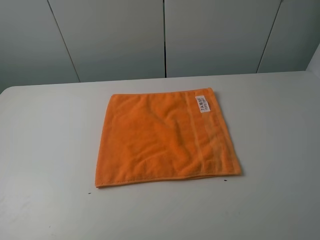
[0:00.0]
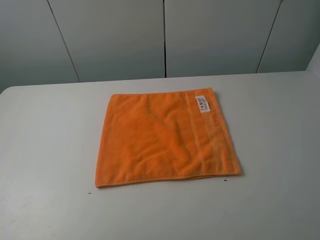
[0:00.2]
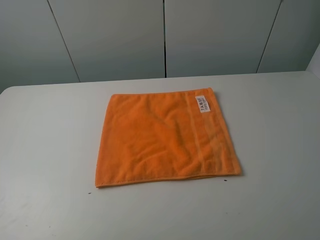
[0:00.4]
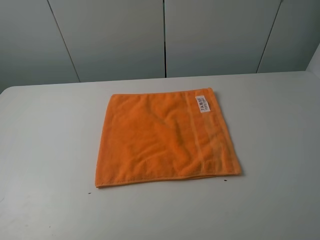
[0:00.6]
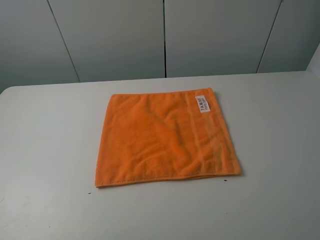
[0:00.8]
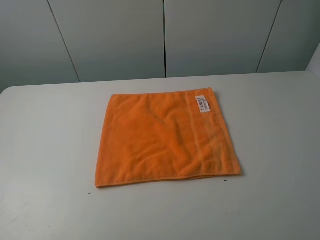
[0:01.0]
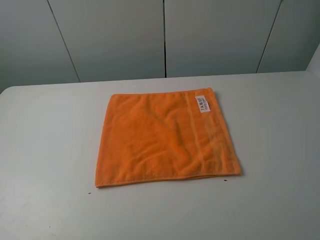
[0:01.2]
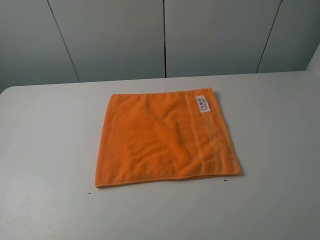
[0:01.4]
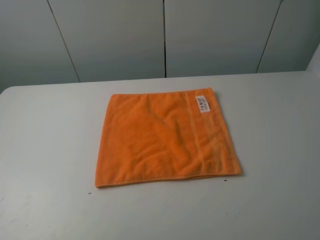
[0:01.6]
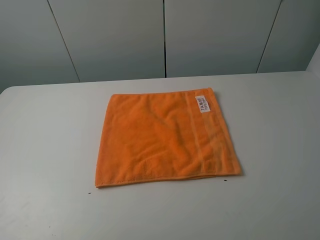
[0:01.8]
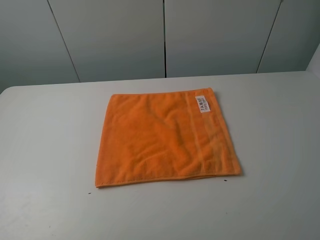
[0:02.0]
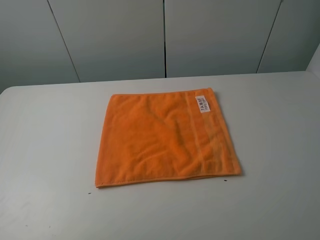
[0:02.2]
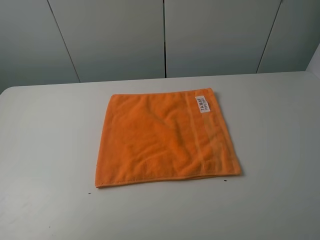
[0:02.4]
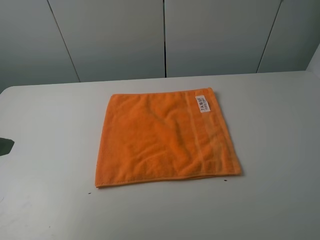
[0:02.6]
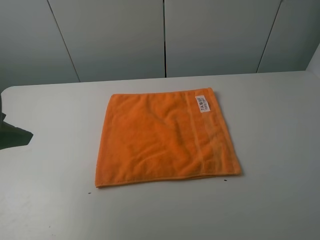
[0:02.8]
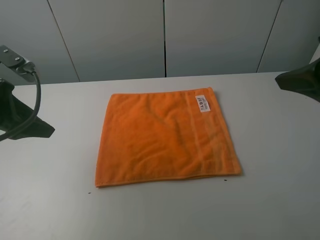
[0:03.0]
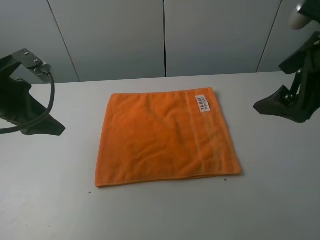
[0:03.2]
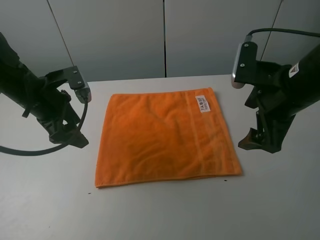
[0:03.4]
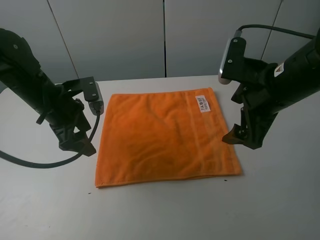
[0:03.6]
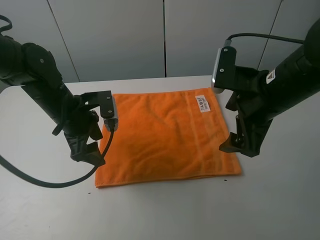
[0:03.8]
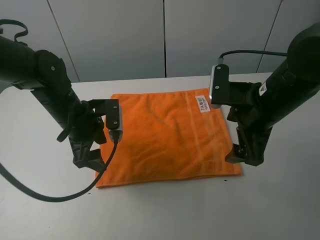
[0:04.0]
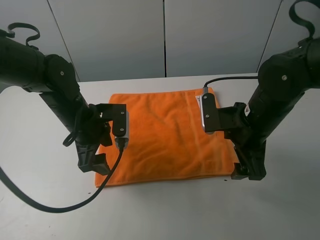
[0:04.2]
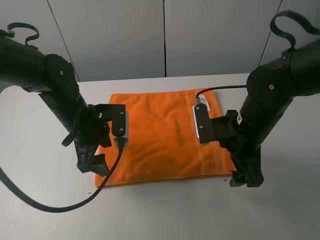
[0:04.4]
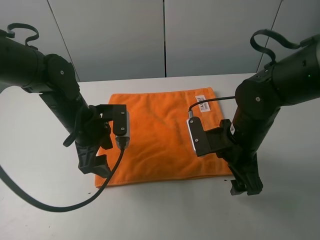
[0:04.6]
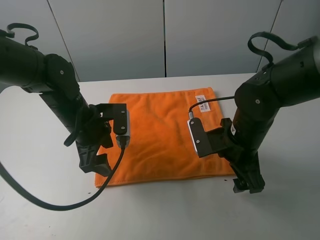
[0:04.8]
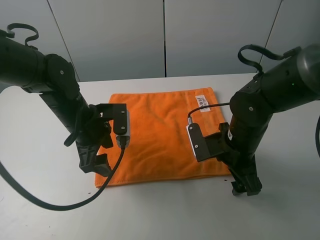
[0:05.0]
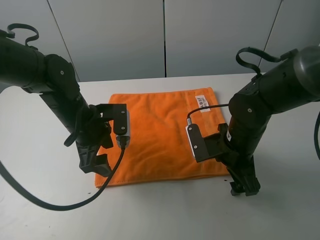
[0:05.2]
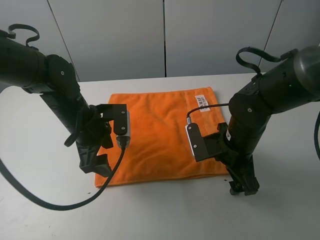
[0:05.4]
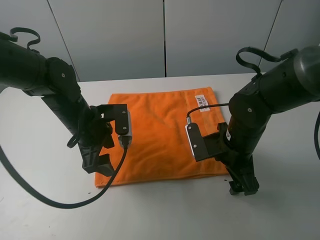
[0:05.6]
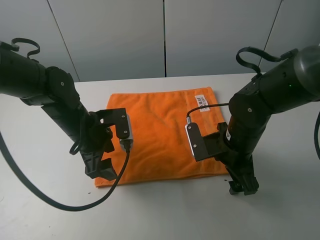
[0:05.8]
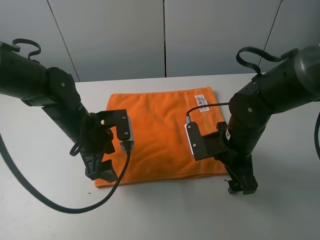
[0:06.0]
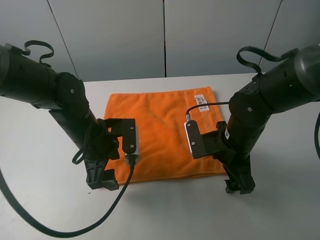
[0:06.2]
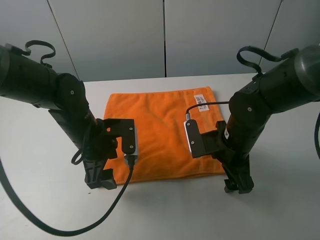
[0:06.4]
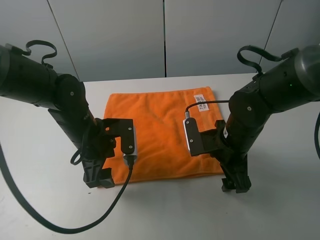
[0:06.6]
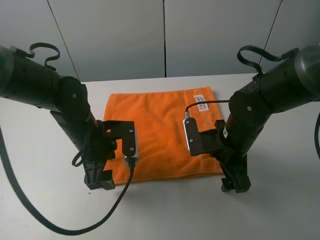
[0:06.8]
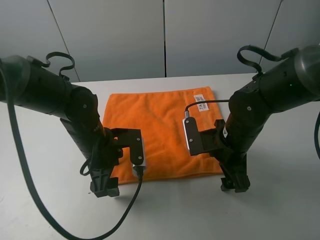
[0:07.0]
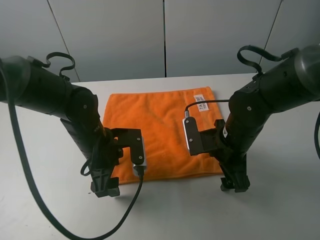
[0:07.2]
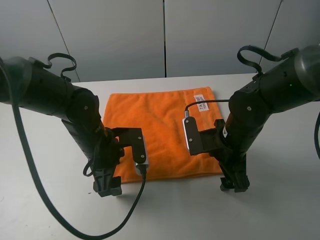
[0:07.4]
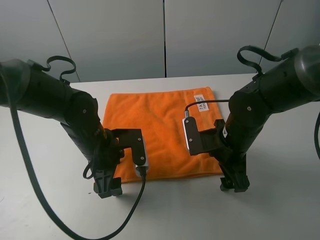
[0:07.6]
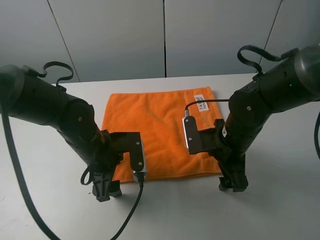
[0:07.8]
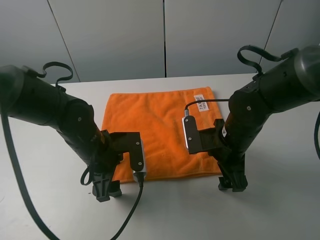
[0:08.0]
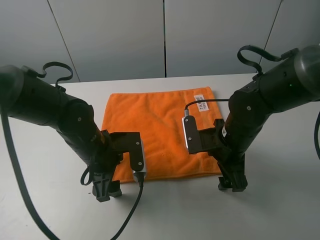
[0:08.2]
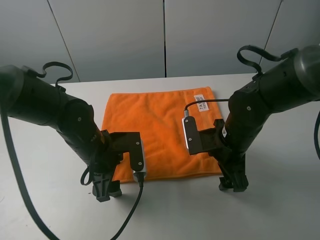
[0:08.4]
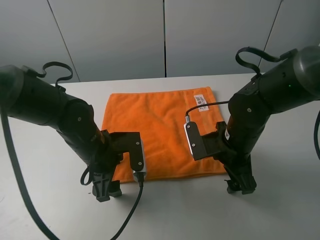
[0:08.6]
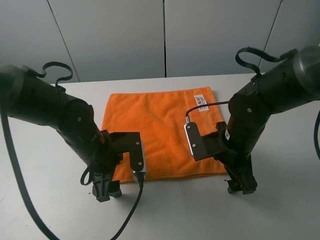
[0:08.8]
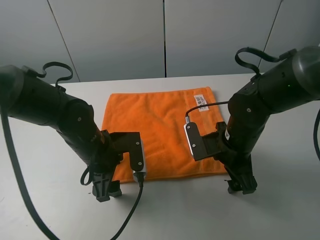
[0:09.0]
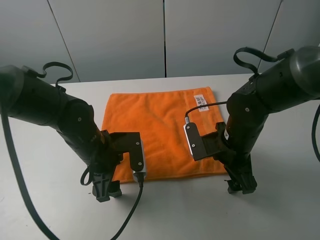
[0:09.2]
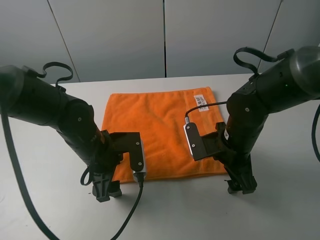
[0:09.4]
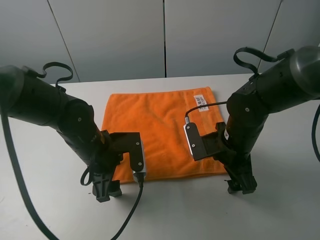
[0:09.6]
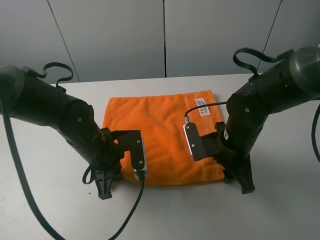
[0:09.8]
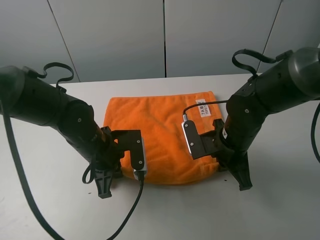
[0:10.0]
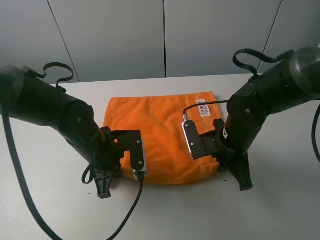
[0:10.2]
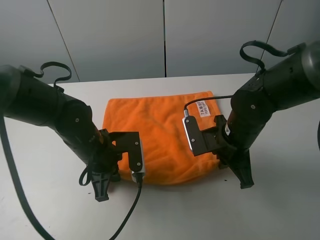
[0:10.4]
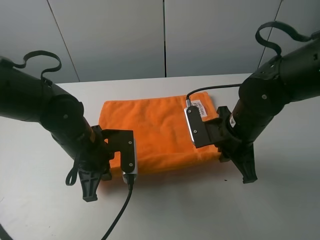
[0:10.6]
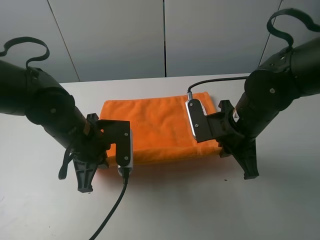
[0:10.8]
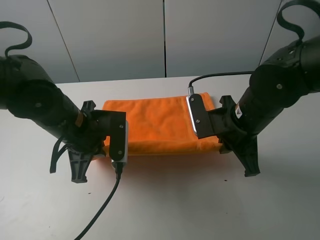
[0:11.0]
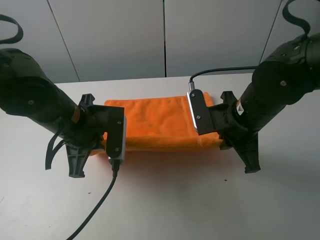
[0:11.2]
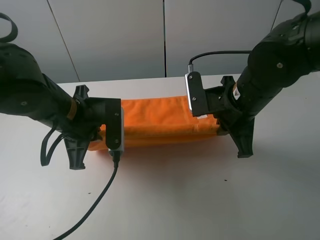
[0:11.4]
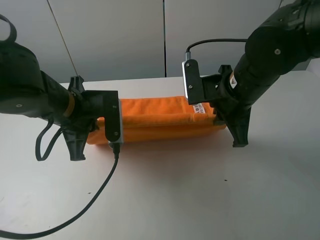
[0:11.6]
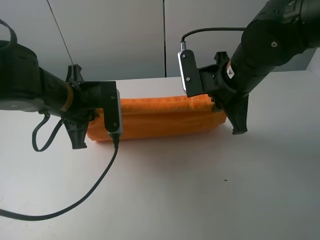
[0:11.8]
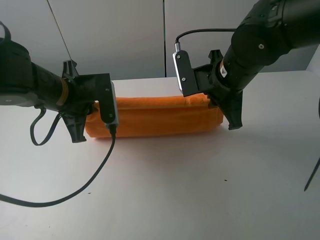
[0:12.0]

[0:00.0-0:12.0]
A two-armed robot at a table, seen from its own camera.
Task of the whole recording: fold the towels on the table.
Step, 0:00.0 to 0:10.0: Grasp the orange towel with the right gripper.
0:00.0 to 0:01.6: The two grippers keep their place.
0:01.6 to 0:03.0: The grippers both shift forward by roughly 20 cm.
0:03.0 to 0:04.4: The right gripper goes some 20 cm downward and to the left. The left gripper travels to the right and downward by about 15 cm.
0:04.4 to 0:06.0: The grippers move only a little.
0:06.0 to 0:09.0: The grippers stay close to where they were, moving slightly.
0:09.0 to 0:10.4: The left gripper closes. Meanwhile the right gripper closes up.
0:10.4 to 0:12.0: The right gripper travels upward and forward by roughly 10 cm. Meanwhile the left gripper travels upward by approximately 10 cm.

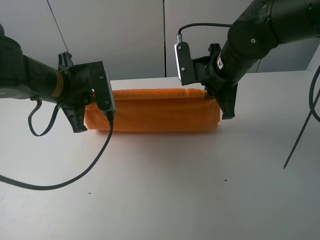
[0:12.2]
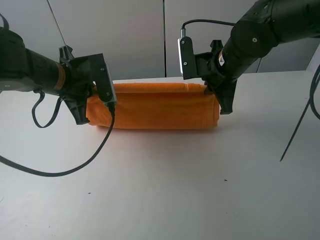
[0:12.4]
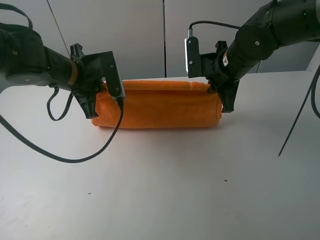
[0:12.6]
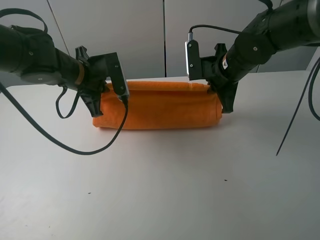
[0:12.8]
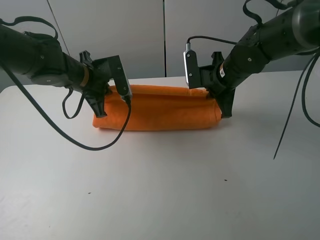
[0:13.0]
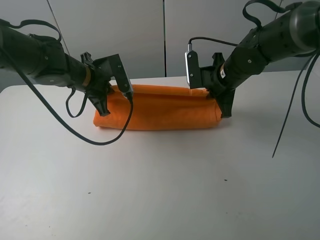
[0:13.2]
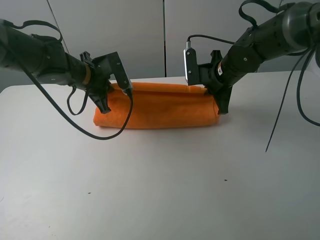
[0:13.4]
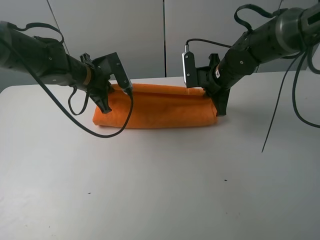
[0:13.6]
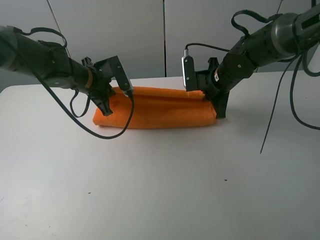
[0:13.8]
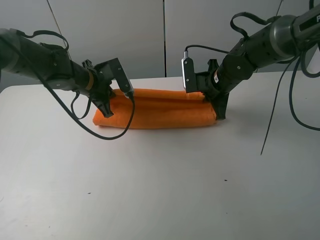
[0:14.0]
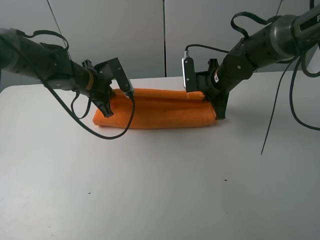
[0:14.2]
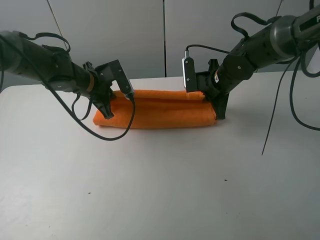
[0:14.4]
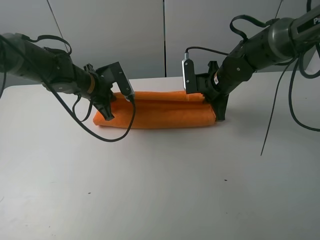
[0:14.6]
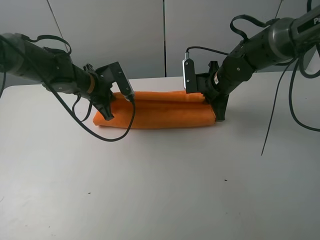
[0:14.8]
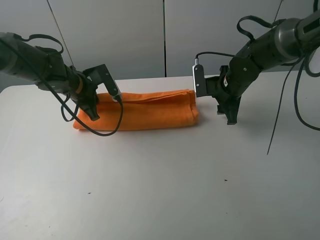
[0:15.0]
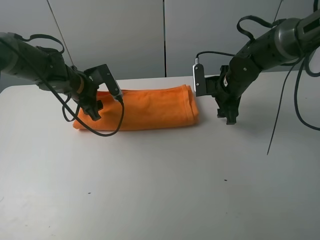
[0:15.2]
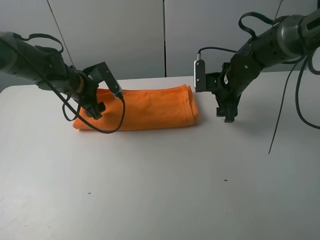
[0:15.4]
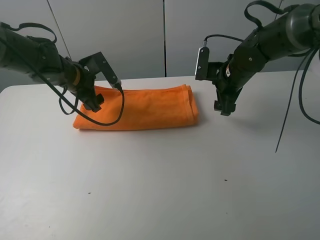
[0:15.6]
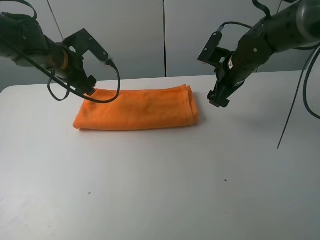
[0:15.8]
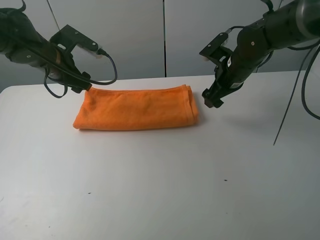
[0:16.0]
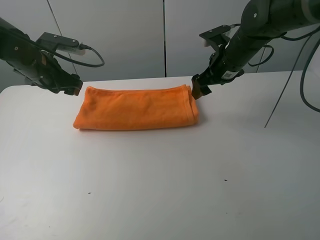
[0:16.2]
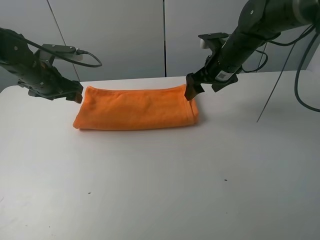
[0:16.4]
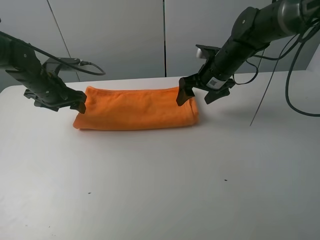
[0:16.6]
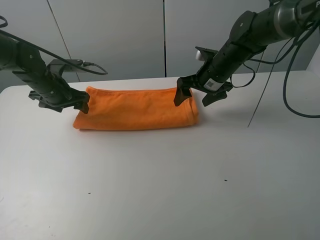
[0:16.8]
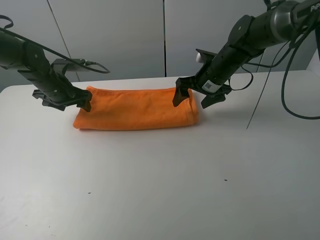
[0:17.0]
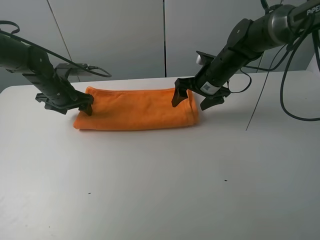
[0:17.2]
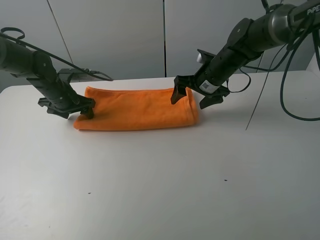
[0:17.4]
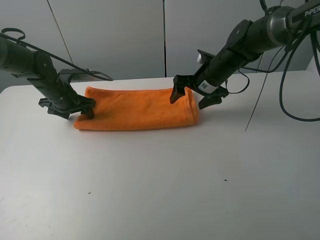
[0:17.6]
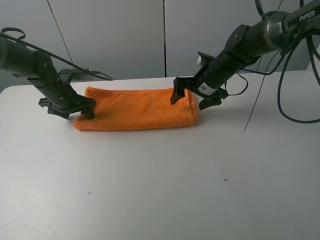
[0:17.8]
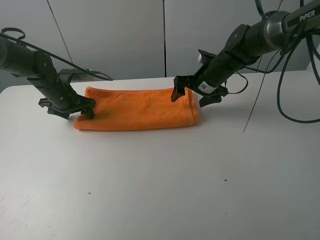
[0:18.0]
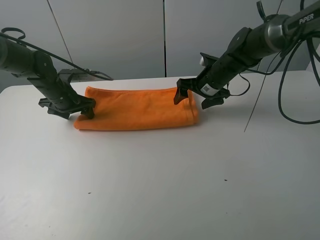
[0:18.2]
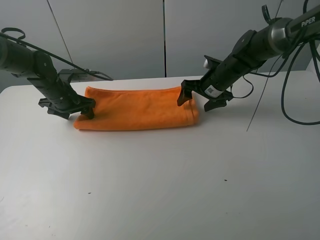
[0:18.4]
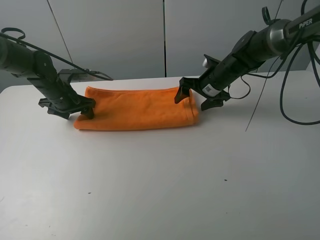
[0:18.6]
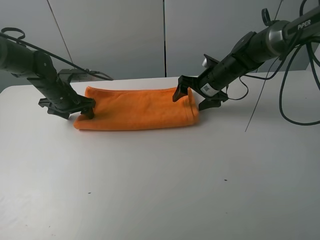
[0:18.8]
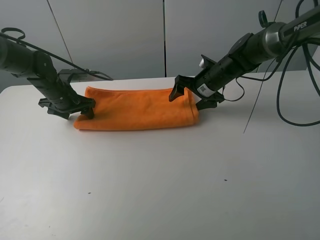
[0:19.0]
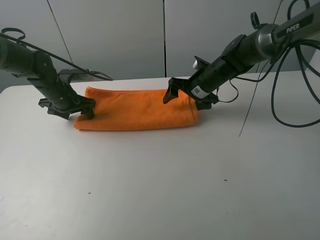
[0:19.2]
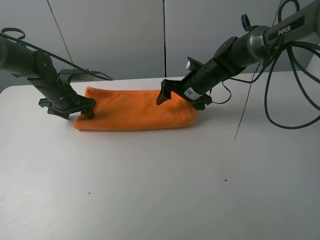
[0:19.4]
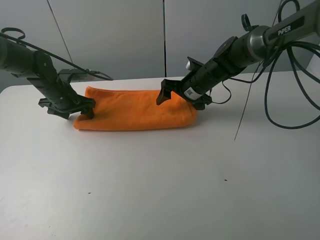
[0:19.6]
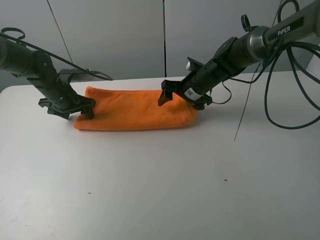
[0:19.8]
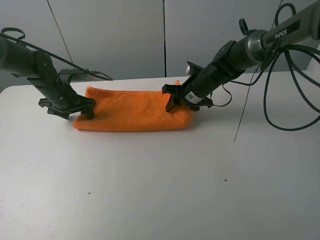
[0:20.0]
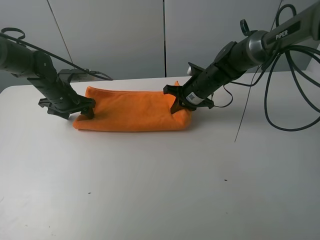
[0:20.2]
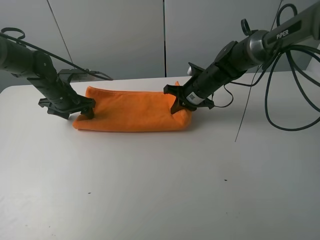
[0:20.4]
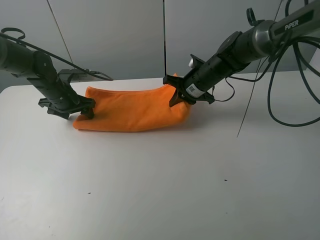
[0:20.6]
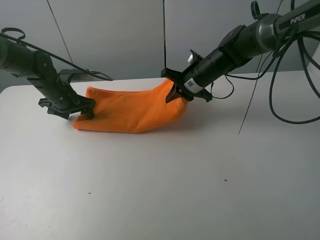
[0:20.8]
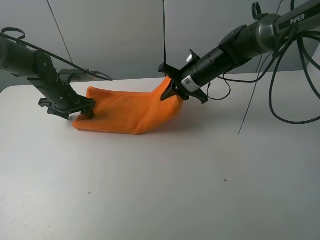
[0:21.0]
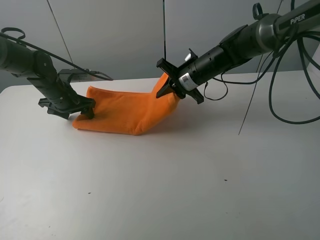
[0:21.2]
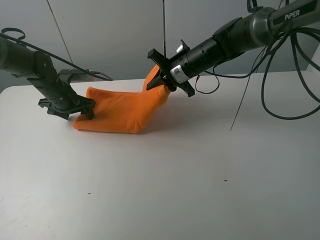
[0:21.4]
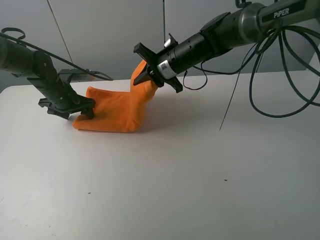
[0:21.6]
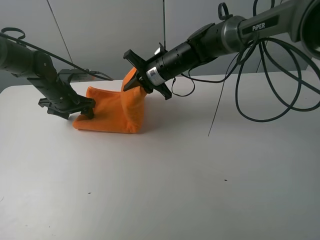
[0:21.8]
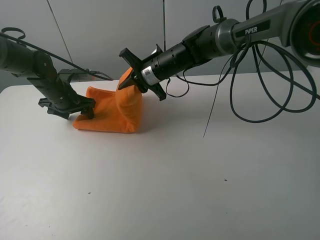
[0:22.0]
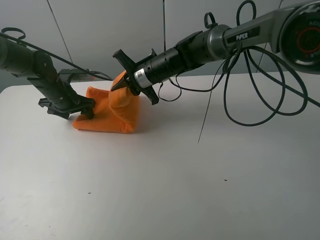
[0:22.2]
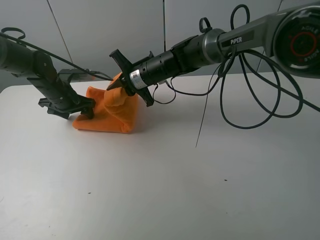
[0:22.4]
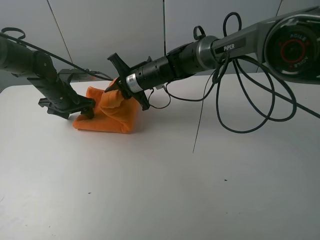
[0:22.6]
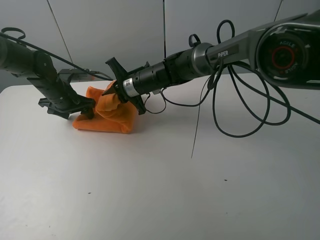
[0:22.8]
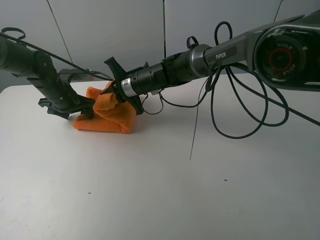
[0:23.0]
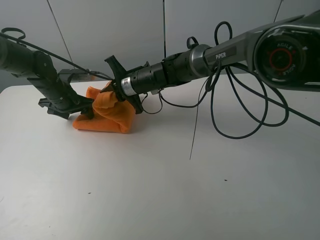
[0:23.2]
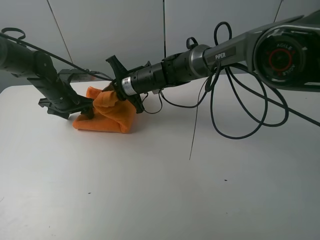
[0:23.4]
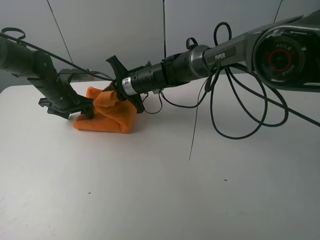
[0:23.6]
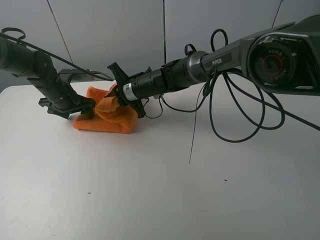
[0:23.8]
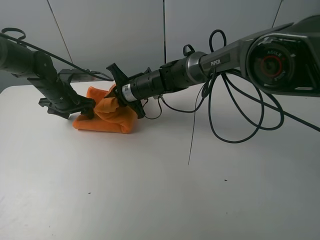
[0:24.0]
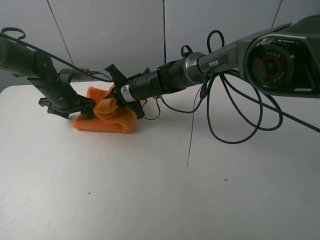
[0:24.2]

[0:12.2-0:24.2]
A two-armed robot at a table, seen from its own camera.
Task of the whole recording: fold the towels on the table.
Step, 0:12.2 to 0:15.2: Fold the orange towel upwards with the right gripper.
Step, 0:15.6 to 0:17.6: Press on the orange towel with the left gripper.
0:12.2 to 0:13.8: The left gripper travels forward and downward by some 10 cm; the right gripper is displaced downward and forward by about 10 cm.
0:13.8 to 0:15.2: The right gripper opens its fingers, while the left gripper opens its fingers.
0:15.2 to 0:16.6: The right gripper changes place by about 5 cm. Meanwhile the left gripper travels to the left by about 5 cm.
0:16.6 to 0:18.2: The grippers make only small movements.
0:18.2 to 0:19.8: There are only small adjustments of the grippers.
0:19.8 to 0:21.2: The right gripper closes up.
0:21.2 to 0:22.6: The right gripper goes some 10 cm to the left.
0:22.6 to 0:24.2: The grippers move only a little.
